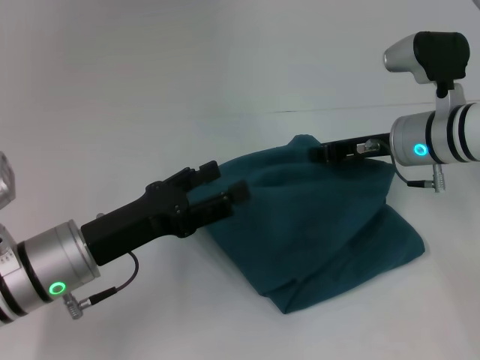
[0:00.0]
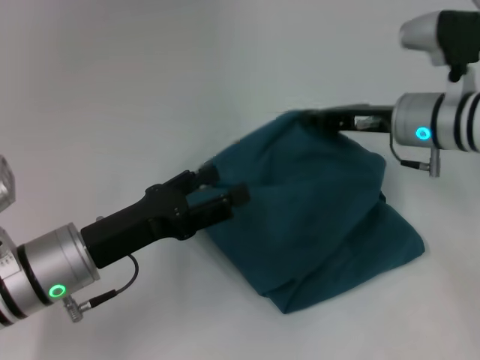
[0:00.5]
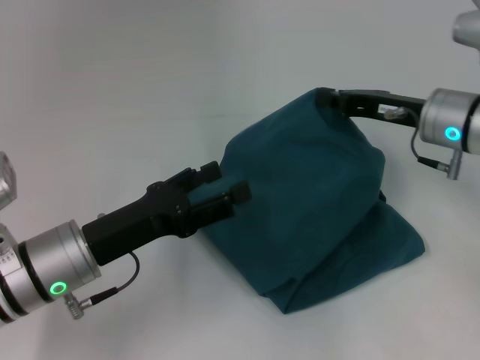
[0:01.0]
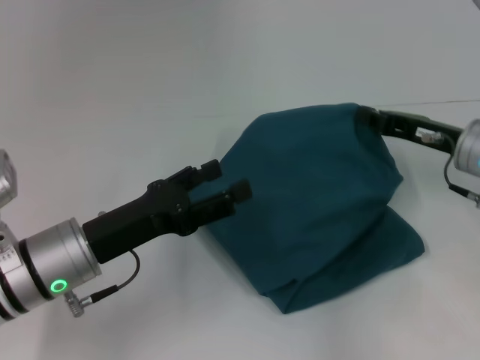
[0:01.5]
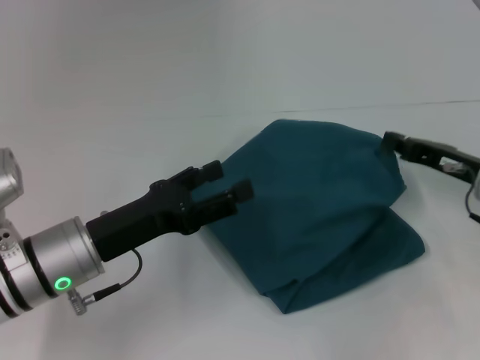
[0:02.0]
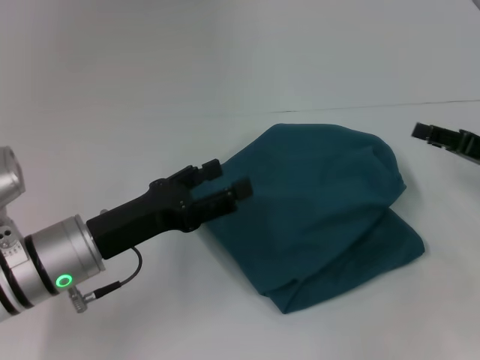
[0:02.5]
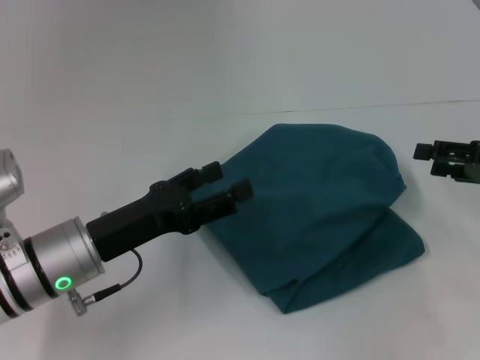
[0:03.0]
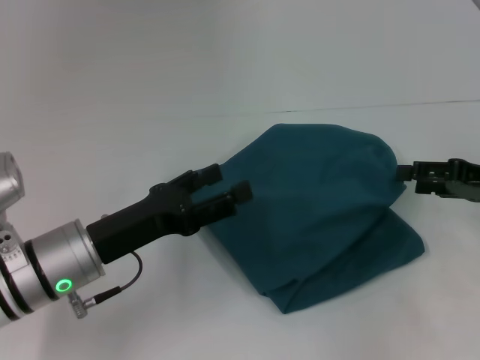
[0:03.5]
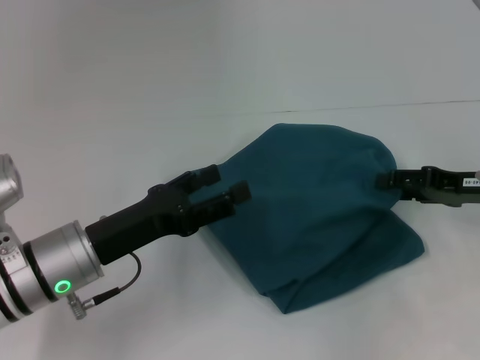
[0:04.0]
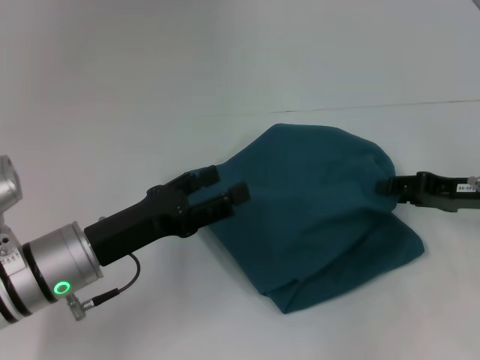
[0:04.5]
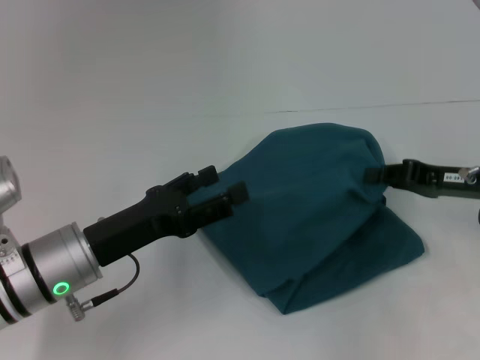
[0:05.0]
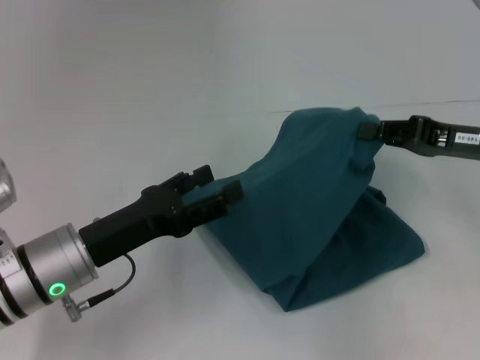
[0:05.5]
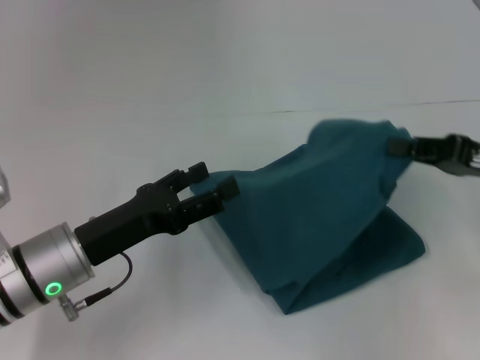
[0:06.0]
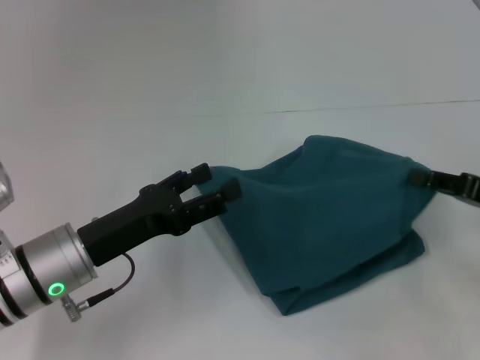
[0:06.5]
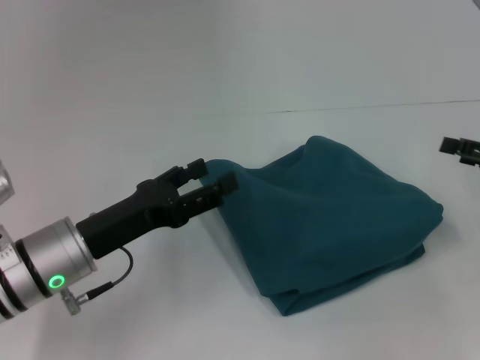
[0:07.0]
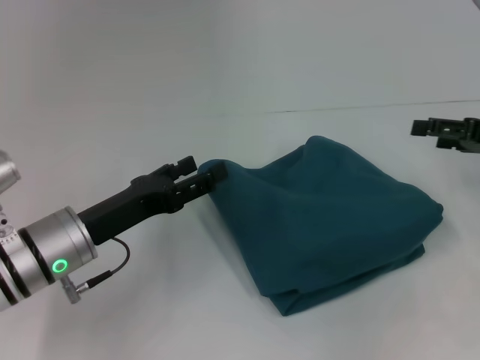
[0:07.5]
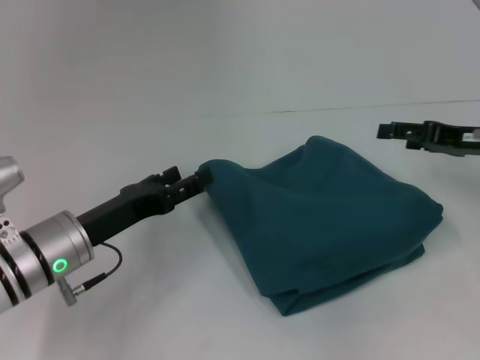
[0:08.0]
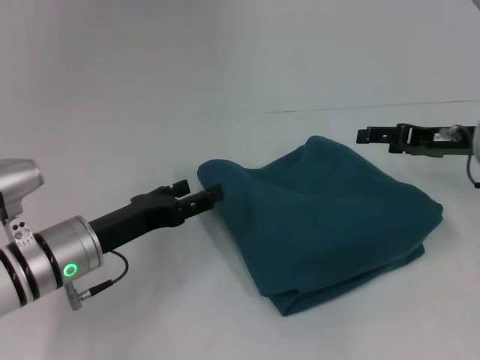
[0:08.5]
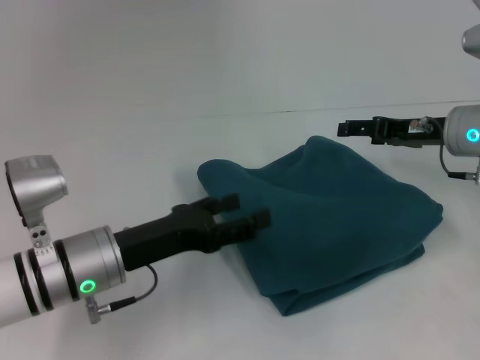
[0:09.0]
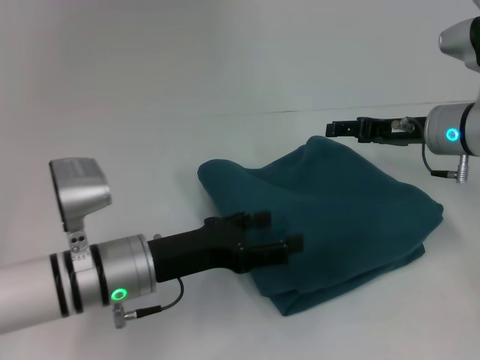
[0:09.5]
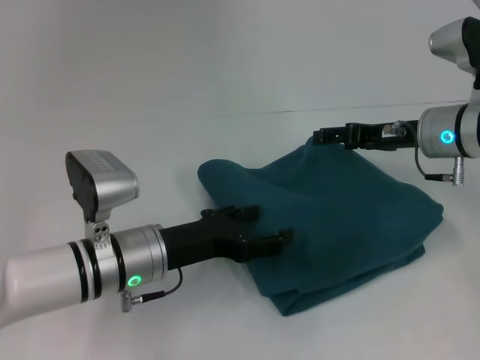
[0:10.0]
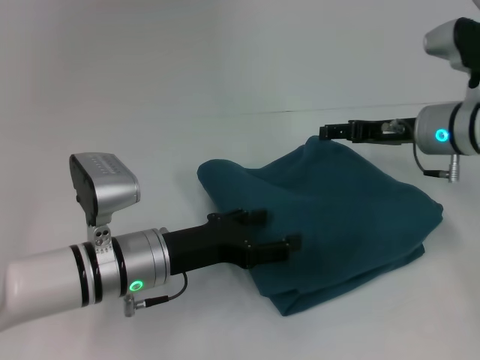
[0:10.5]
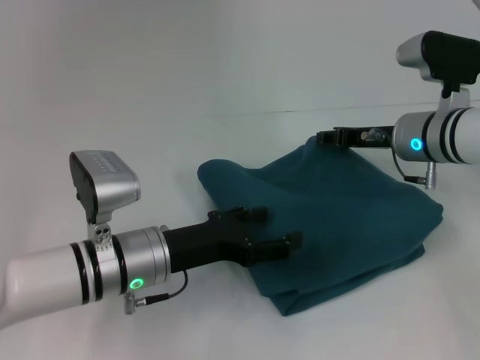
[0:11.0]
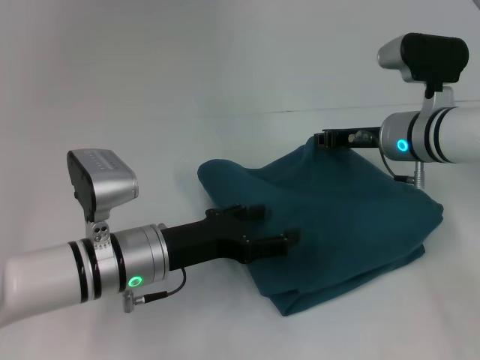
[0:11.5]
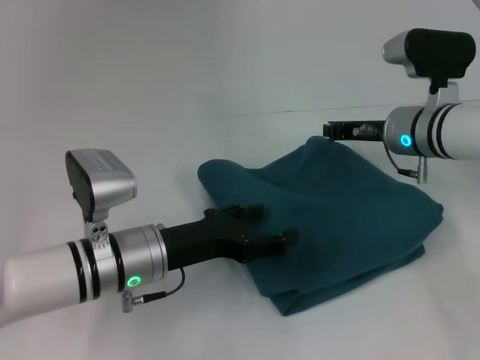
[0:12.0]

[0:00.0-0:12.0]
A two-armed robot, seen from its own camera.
0:00.0 to 0:02.0: The right gripper goes roughly 10 cm to the right and backward.
0:02.0 to 0:04.0: The right gripper opens.
0:04.0 to 0:06.0: The right gripper ends up roughly 5 cm from where it was, and closes its fingers.
0:06.0 to 0:08.0: The right gripper shifts about 5 cm forward, and opens up.
0:08.0 to 0:10.0: The left gripper travels to the right by roughly 5 cm. The right gripper heads to the left, covering about 10 cm.
0:10.0 to 0:12.0: The right gripper closes up.

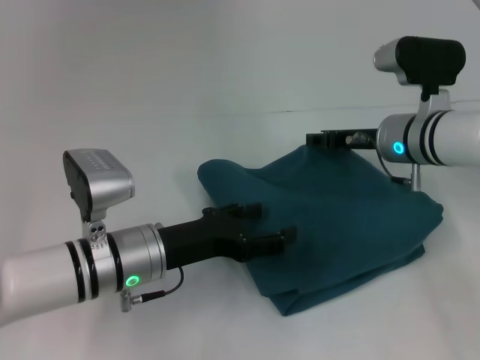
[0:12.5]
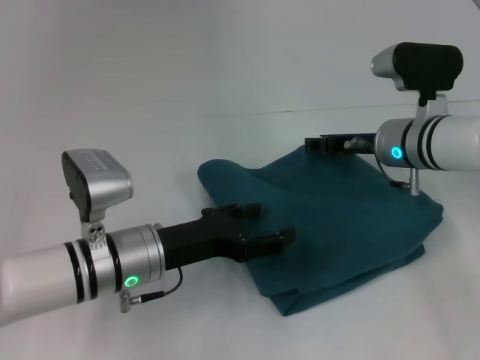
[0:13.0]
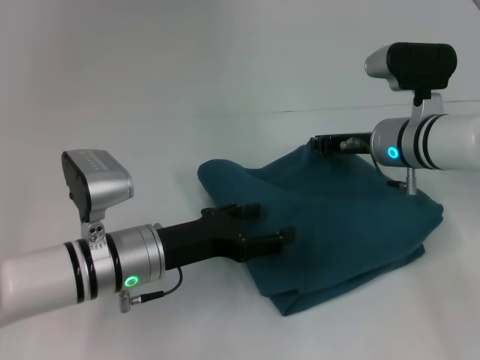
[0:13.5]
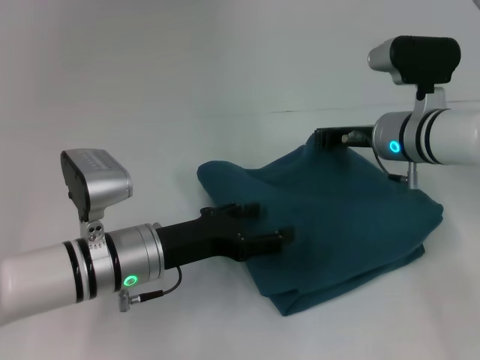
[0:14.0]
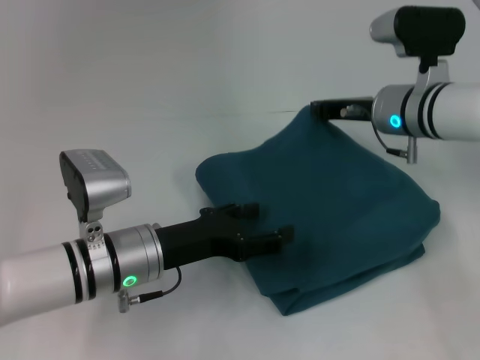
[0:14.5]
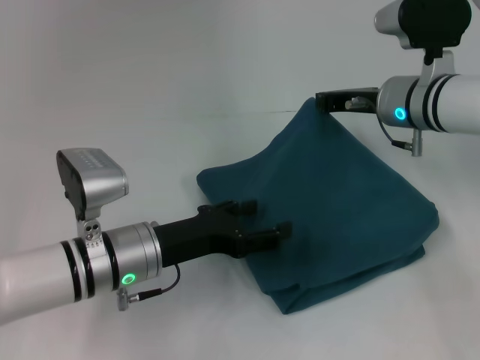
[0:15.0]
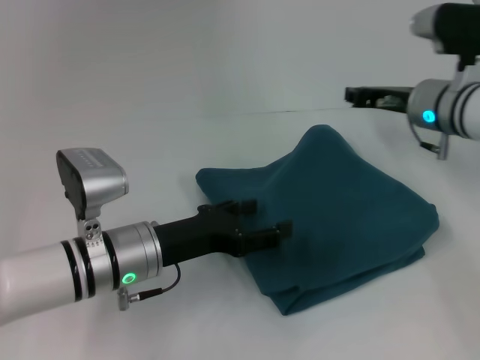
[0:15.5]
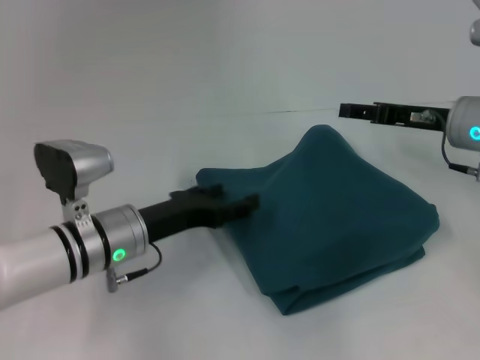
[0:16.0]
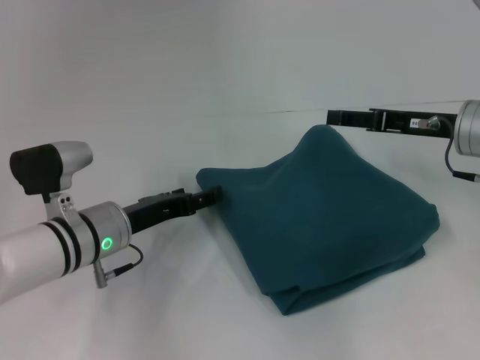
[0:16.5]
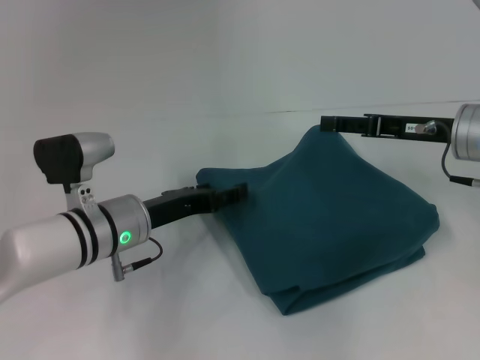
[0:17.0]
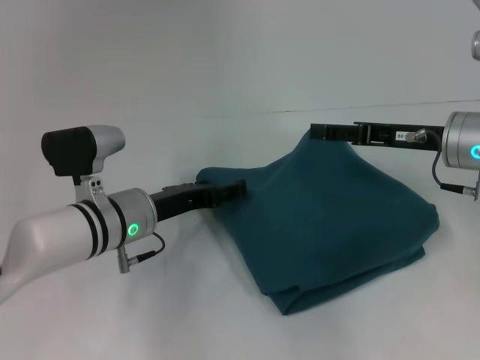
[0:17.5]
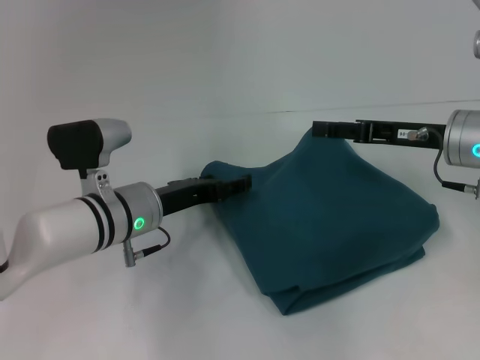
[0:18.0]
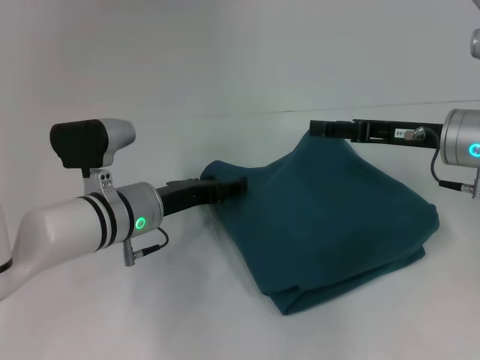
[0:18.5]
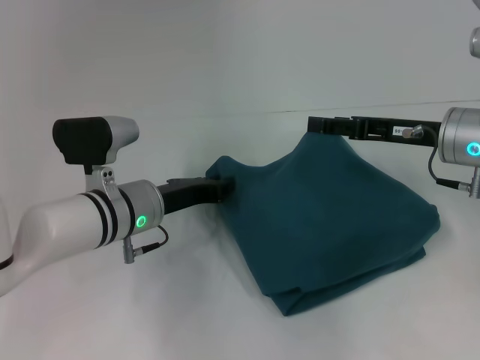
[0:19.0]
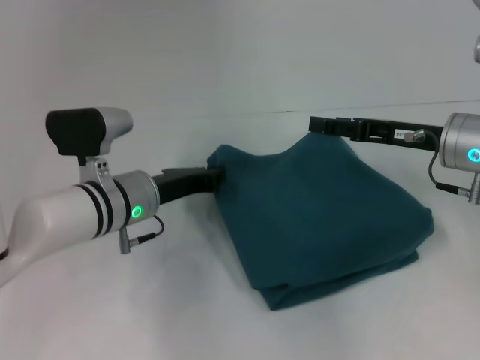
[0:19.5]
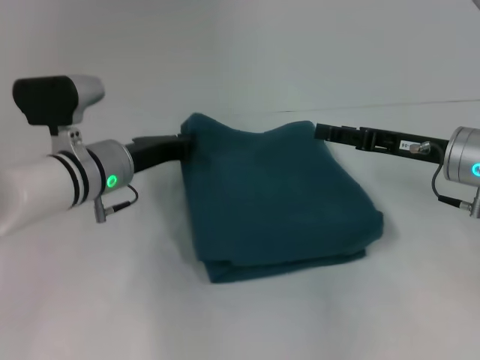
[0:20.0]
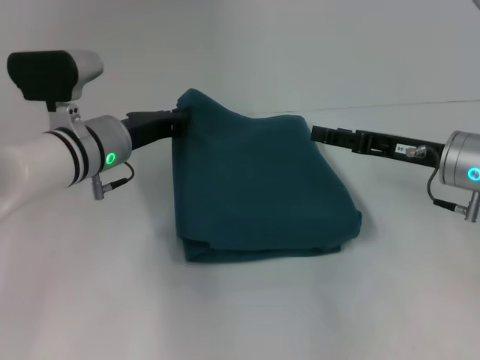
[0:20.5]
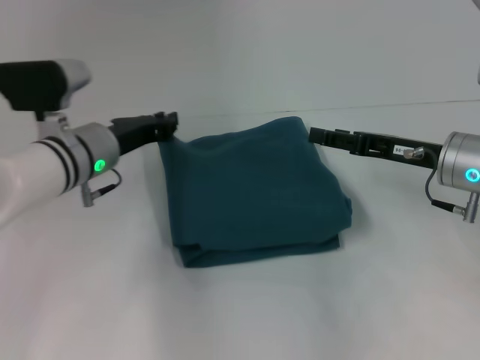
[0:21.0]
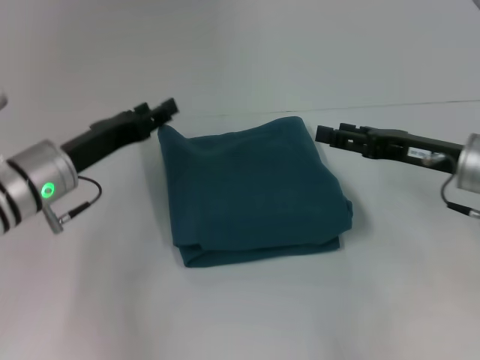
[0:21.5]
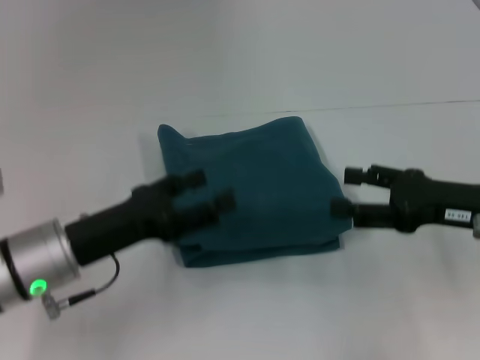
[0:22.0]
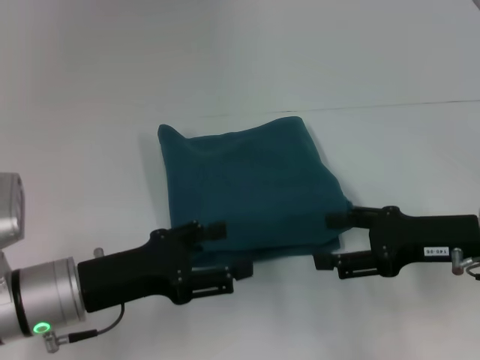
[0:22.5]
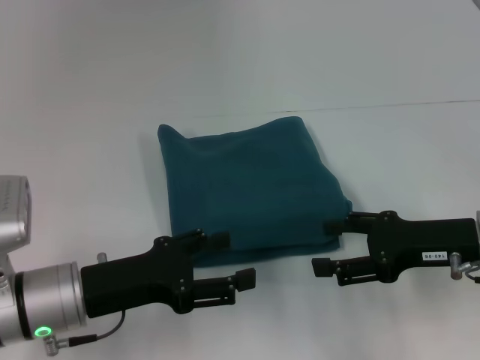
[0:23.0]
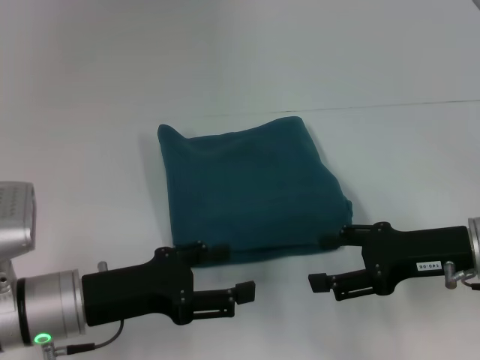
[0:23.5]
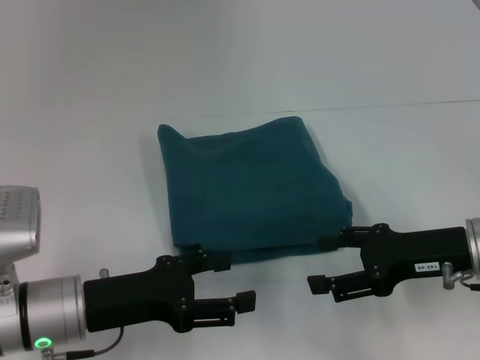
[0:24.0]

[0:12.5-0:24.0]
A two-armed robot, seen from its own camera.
0:12.5 to 0:14.5: The right gripper closes up.
0:14.5 to 0:16.5: The right gripper goes some 10 cm to the right and backward, and opens.
0:16.5 to 0:18.5: The grippers make only small movements.
0:18.5 to 0:20.0: The left gripper moves approximately 5 cm, and closes.
0:20.0 to 0:22.0: The right gripper heads backward, covering some 5 cm; the left gripper moves backward, approximately 10 cm, and opens up.
